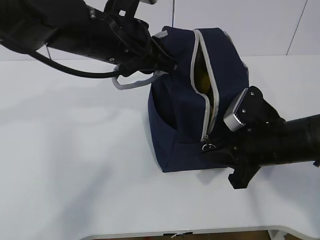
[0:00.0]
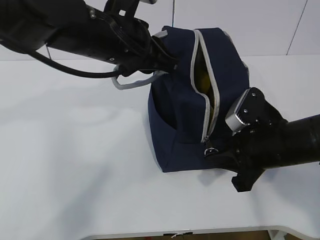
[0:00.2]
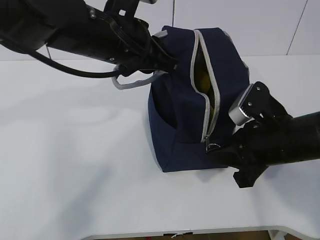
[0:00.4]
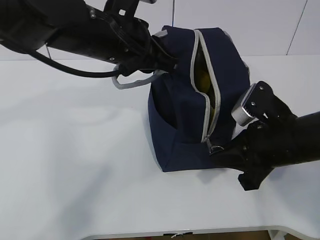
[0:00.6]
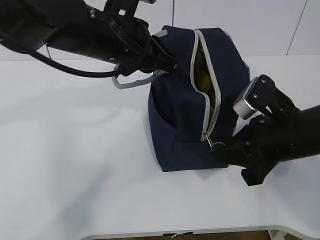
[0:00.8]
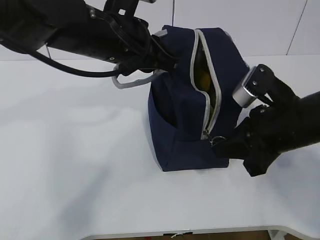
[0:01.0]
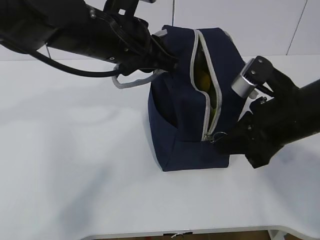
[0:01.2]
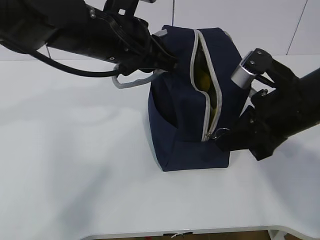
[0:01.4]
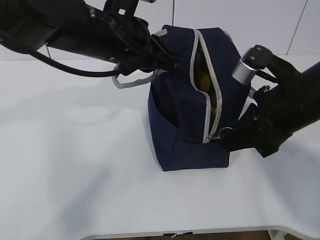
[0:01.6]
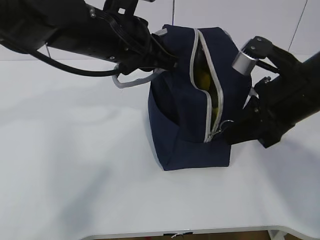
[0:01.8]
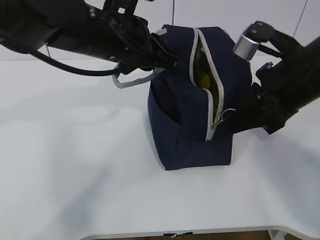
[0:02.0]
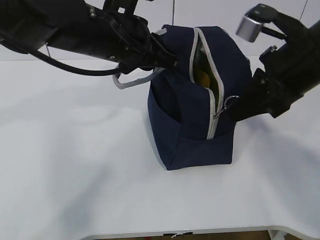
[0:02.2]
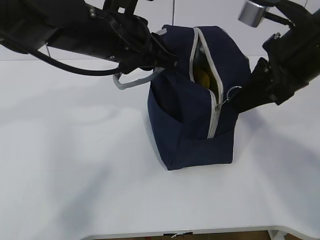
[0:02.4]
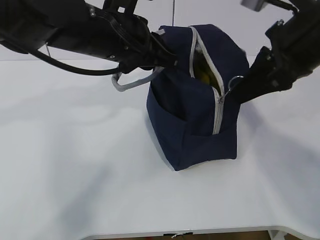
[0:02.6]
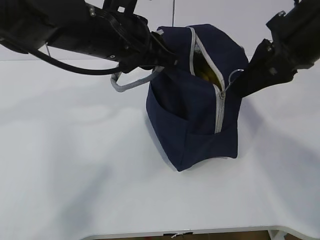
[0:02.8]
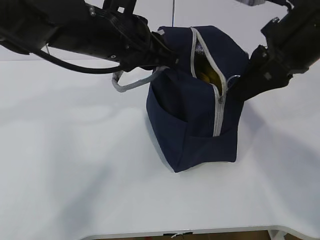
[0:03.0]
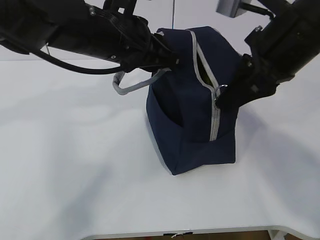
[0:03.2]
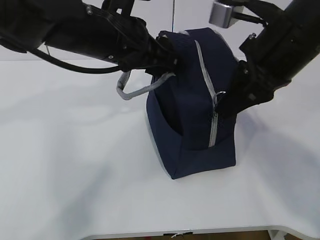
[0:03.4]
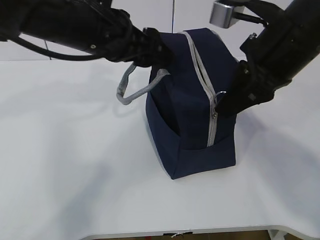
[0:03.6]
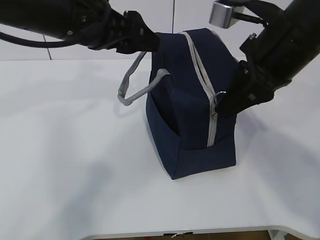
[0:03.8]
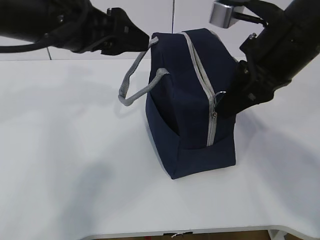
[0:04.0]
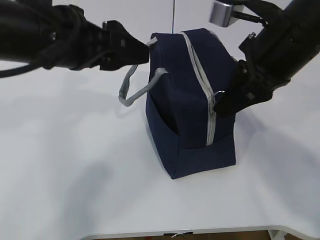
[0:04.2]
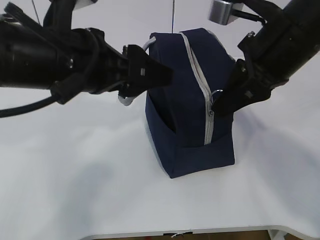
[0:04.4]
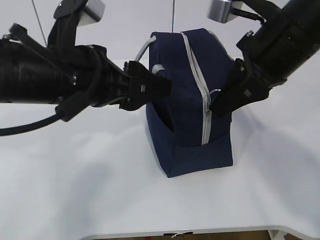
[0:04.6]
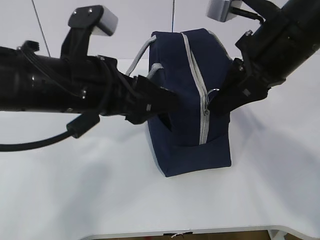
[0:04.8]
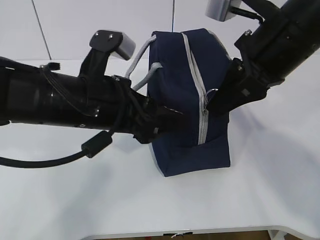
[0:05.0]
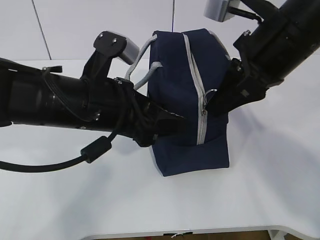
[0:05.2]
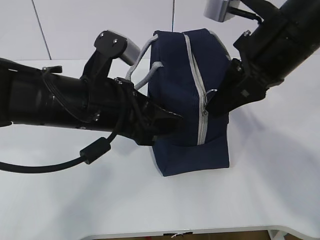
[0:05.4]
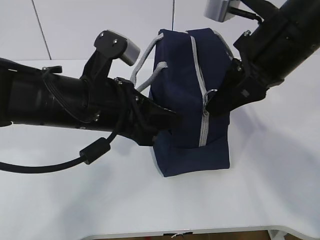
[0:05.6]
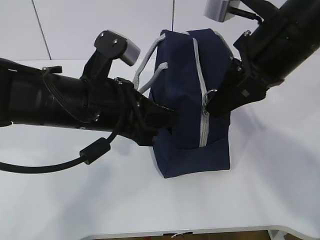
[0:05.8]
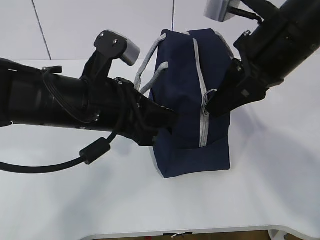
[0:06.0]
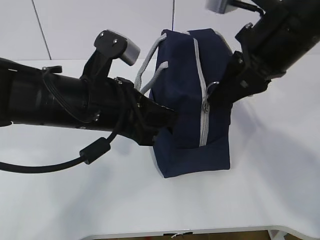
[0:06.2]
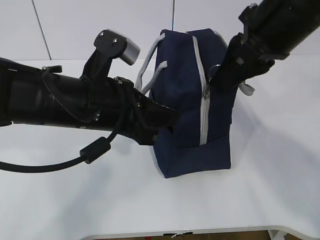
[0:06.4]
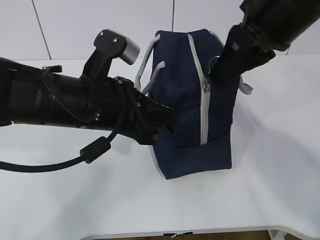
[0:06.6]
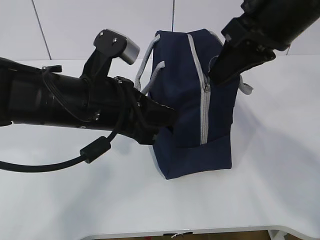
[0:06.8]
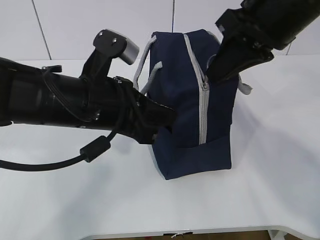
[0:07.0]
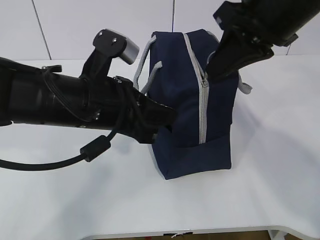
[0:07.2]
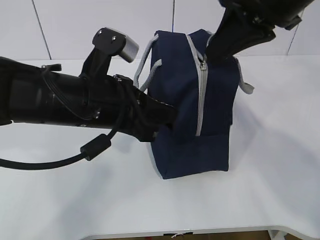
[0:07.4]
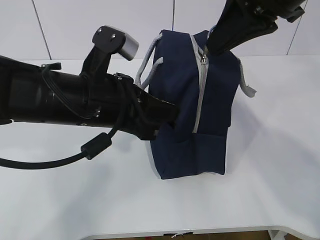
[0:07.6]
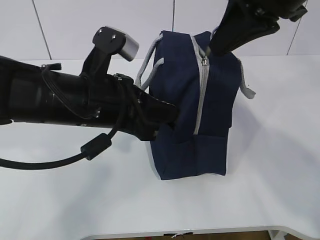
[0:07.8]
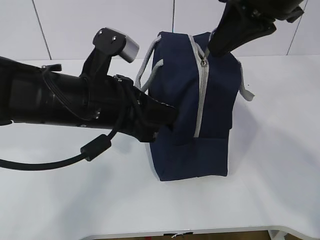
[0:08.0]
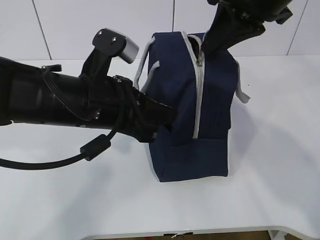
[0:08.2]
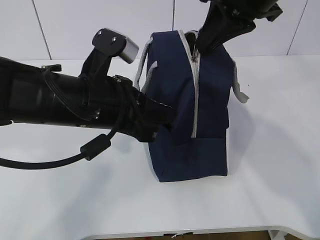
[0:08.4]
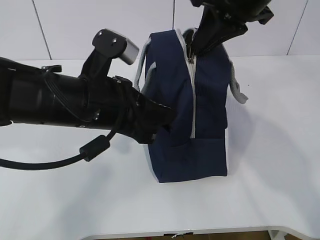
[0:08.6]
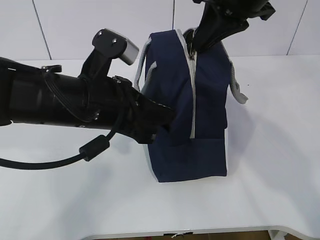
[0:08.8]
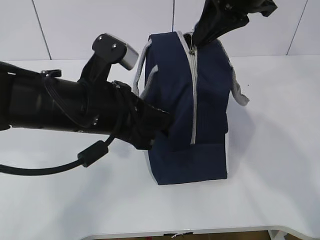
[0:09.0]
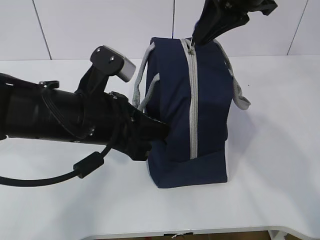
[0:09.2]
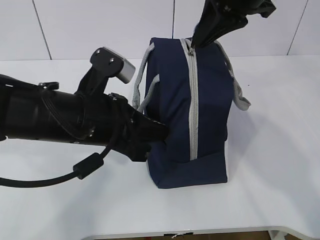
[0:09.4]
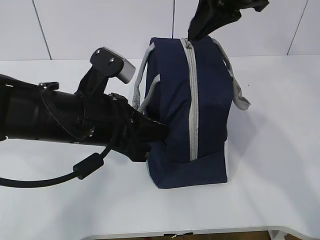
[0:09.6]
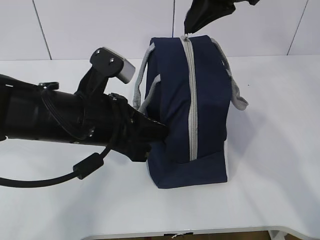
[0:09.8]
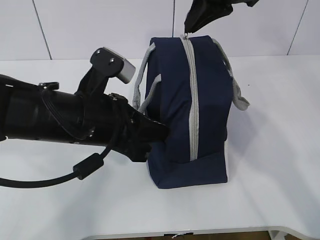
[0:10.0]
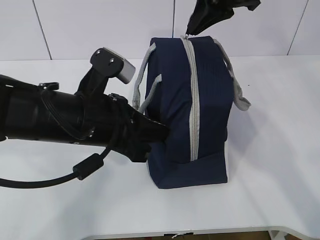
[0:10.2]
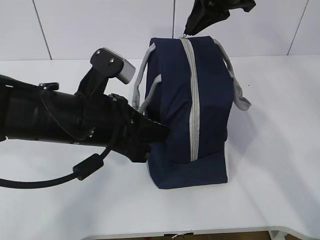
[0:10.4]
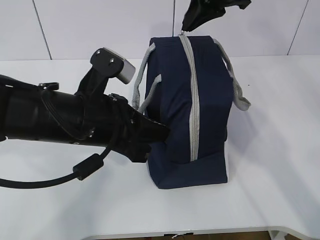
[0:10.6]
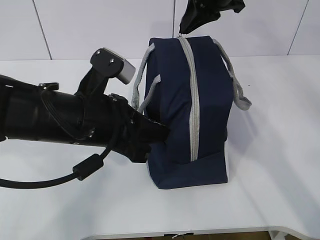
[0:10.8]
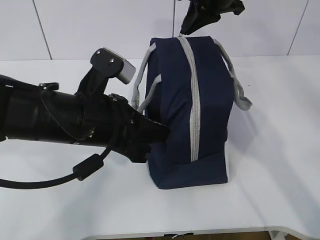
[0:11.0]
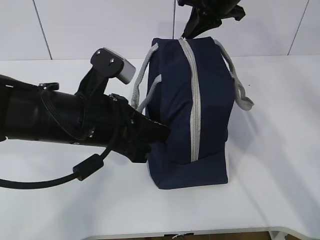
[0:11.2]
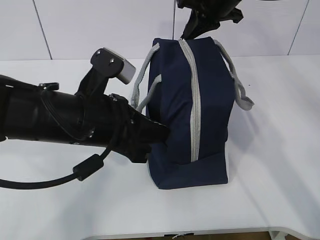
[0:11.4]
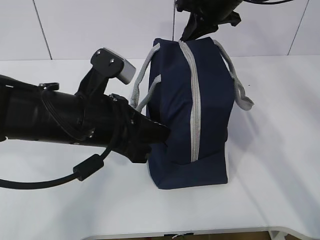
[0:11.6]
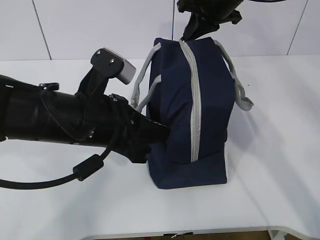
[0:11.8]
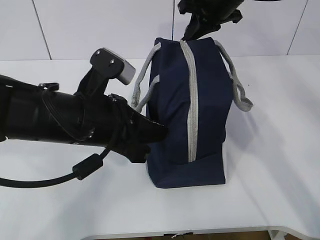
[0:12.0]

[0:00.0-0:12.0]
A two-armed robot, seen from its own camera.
Step, 0:00.0 to 0:02.8: Pull the zipper with your right hand.
Step, 0:03.0 to 0:04.2: Grab the lunch bag with your left hand.
0:00.0 to 0:01.6: The right gripper moves upward, roughly 10 cm.
0:01.6 to 0:03.0: The right gripper travels upward by roughly 10 cm.
0:03.0 to 0:04.4: The left gripper travels backward by roughly 10 cm, and opens up.
0:04.4 to 0:06.0: The left gripper heads downward, covering about 5 cm, and closes up.
0:06.0 to 0:07.6: The right gripper is displaced upward by about 5 cm.
0:07.6 to 0:09.0: The right gripper is displaced forward by approximately 5 cm.
0:09.0 to 0:10.4: The right gripper goes about 5 cm forward.
0:10.4 to 0:12.0: The right gripper moves forward, some 5 cm.

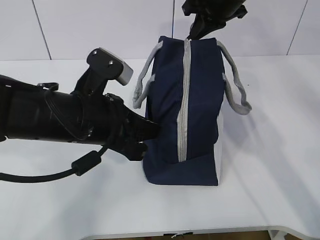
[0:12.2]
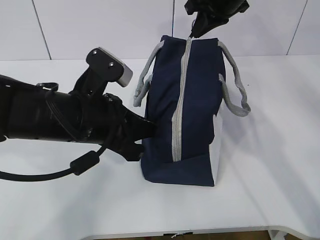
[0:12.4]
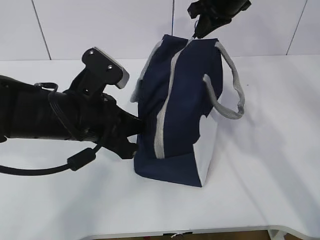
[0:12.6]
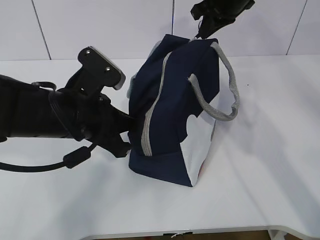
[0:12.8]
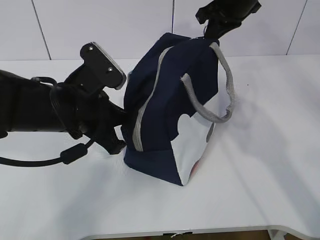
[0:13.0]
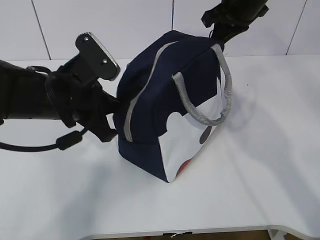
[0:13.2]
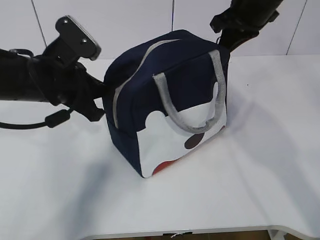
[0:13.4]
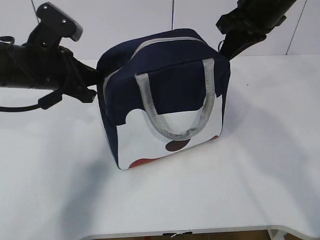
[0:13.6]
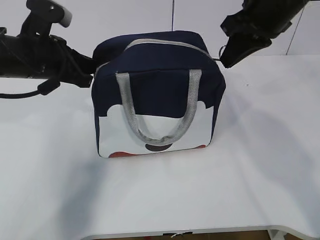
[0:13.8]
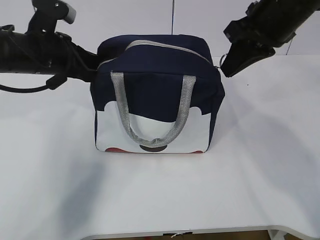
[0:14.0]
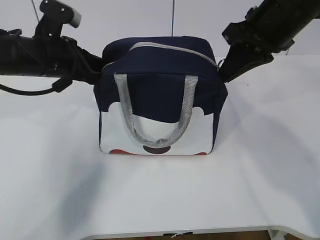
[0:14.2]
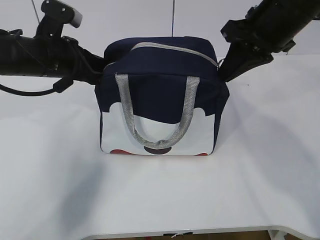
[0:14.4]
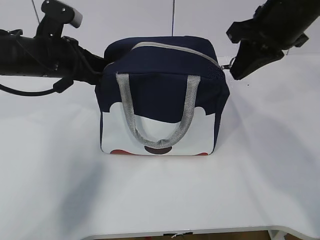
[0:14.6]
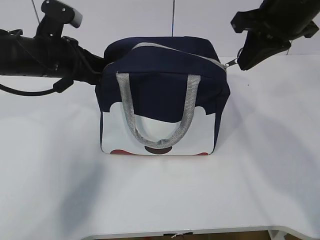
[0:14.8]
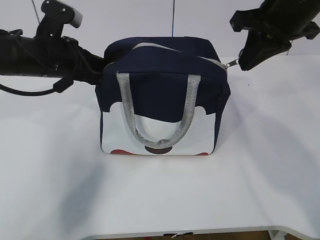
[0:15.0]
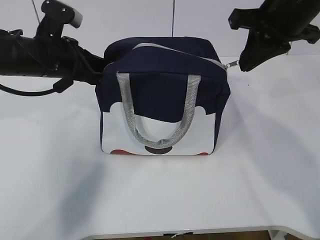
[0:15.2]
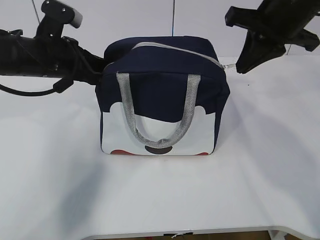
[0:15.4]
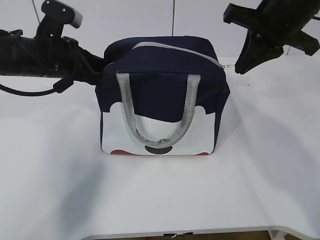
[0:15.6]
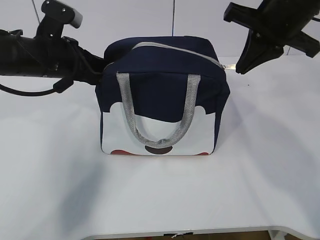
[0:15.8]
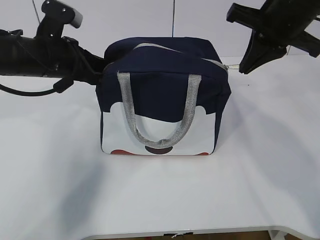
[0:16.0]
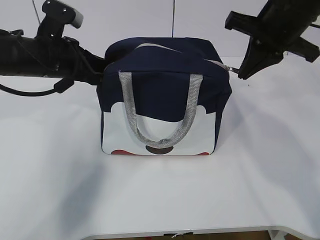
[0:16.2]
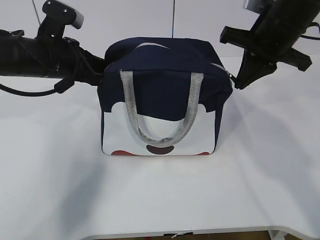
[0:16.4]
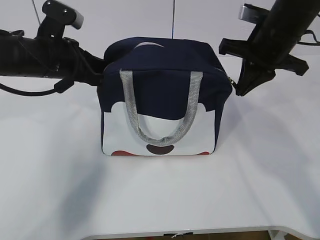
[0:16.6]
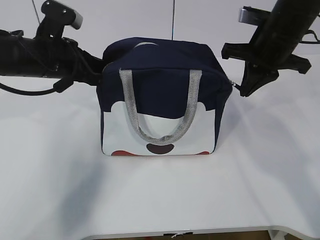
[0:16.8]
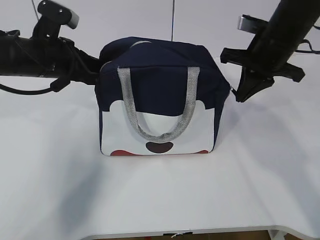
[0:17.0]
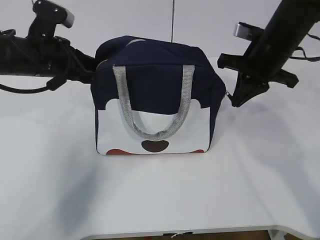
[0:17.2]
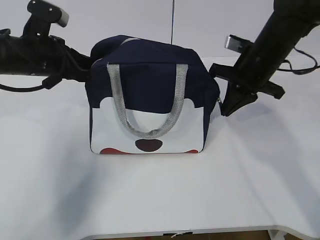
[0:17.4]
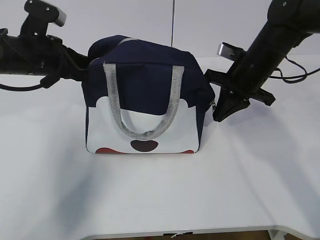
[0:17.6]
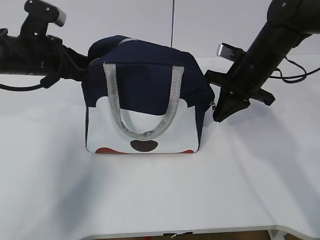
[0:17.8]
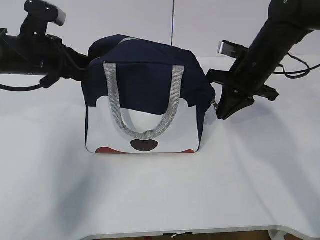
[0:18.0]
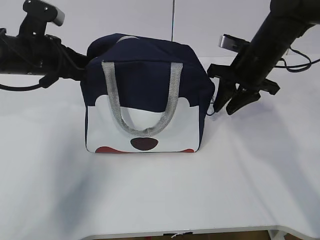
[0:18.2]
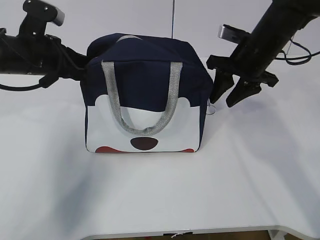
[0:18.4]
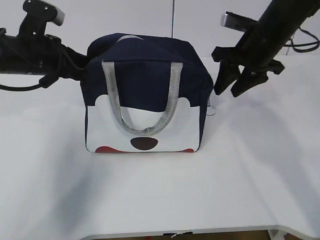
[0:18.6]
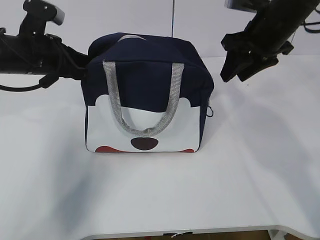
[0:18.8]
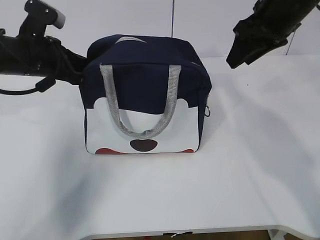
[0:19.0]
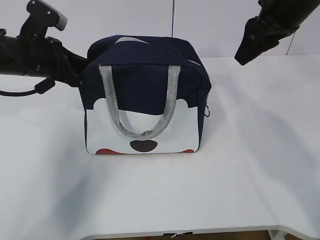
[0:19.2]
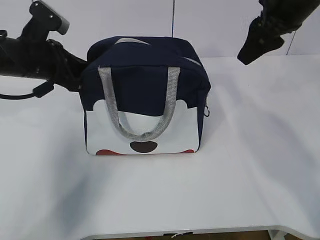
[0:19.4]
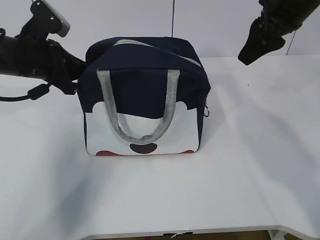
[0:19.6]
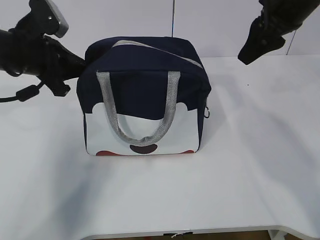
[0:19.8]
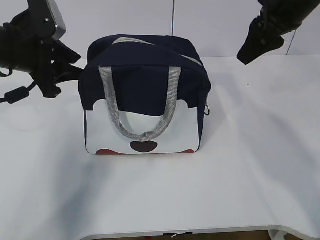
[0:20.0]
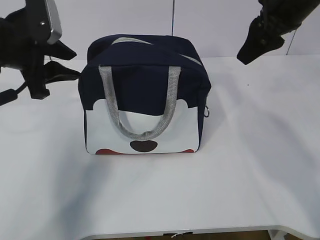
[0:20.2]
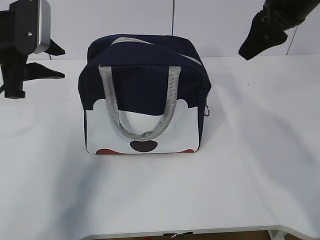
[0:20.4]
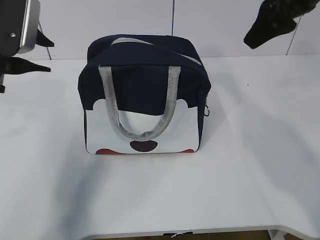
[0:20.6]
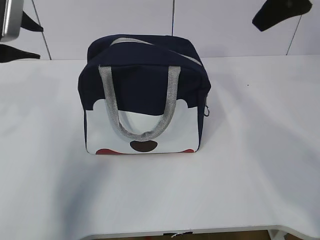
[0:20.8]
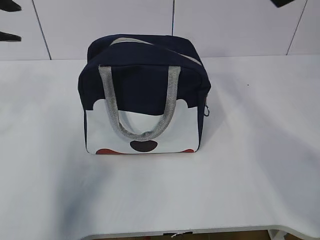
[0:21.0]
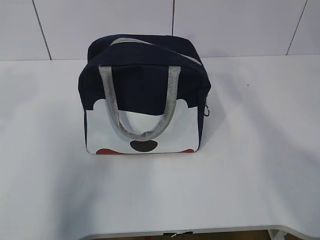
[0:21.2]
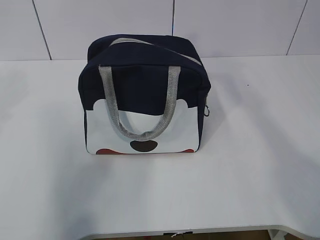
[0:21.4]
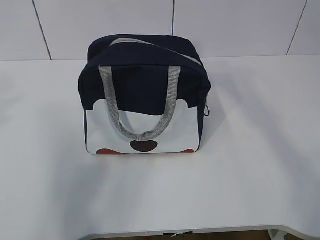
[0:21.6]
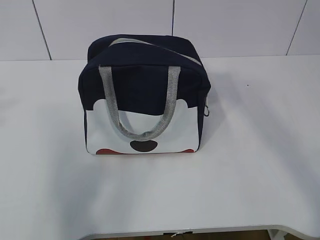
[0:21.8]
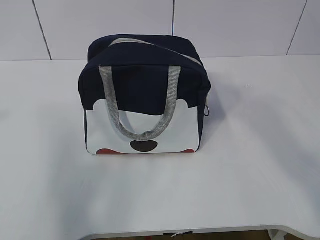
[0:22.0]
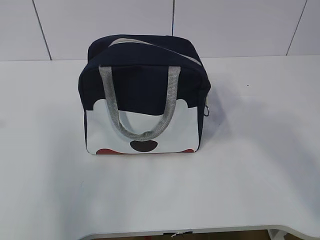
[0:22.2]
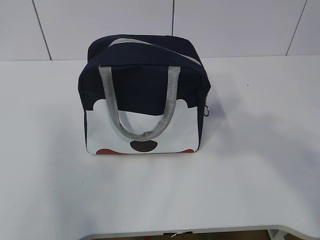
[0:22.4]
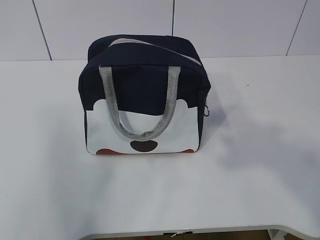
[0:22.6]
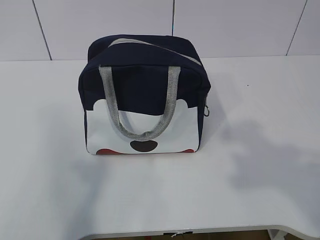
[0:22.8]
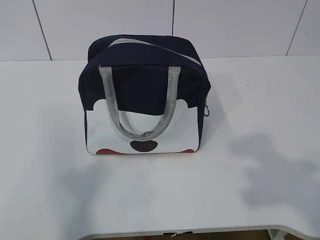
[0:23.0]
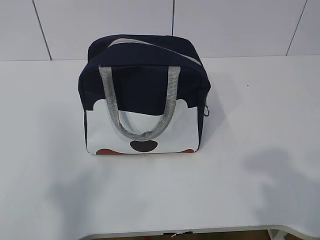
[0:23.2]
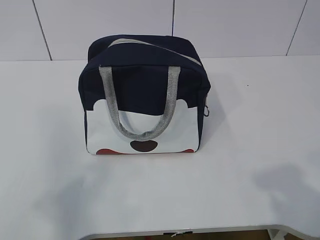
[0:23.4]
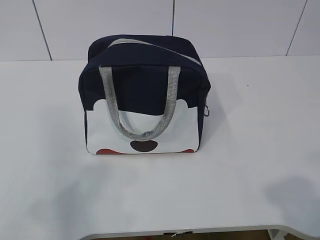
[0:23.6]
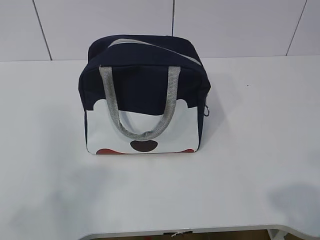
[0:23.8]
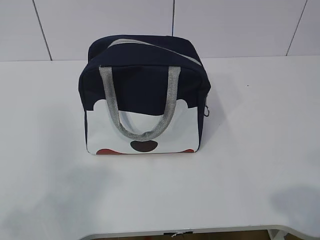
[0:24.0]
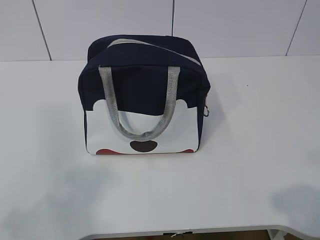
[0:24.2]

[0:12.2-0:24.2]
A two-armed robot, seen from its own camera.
0:12.2 to 0:13.8: The right gripper moves backward, approximately 10 cm. Meanwhile the left gripper travels forward and to the left by approximately 15 cm.
0:15.2 to 0:16.6: The right gripper heads downward, covering approximately 5 cm.
0:16.6 to 0:18.2: The right gripper moves downward, about 5 cm, and opens its fingers.
0:18.2 to 0:19.8: The right gripper shifts approximately 10 cm upward.
0:19.8 to 0:21.2: Both grippers move upward and backward, roughly 15 cm. The left gripper opens its fingers.
0:21.2 to 0:22.6: Both grippers travel together backward, roughly 20 cm.
0:22.6 to 0:24.2: The left gripper shifts approximately 10 cm downward and backward, while the right gripper goes about 15 cm downward.
